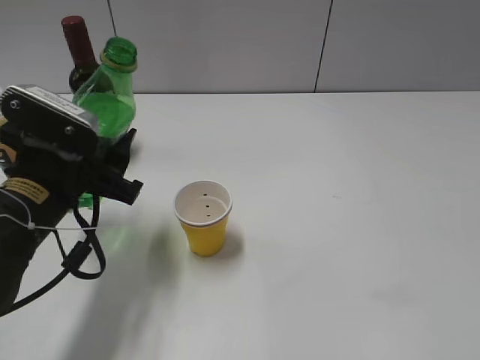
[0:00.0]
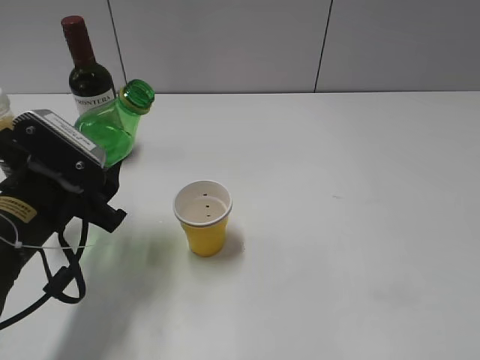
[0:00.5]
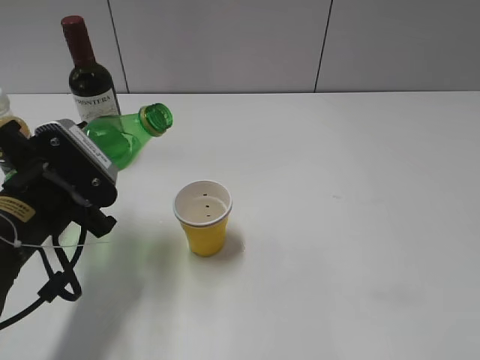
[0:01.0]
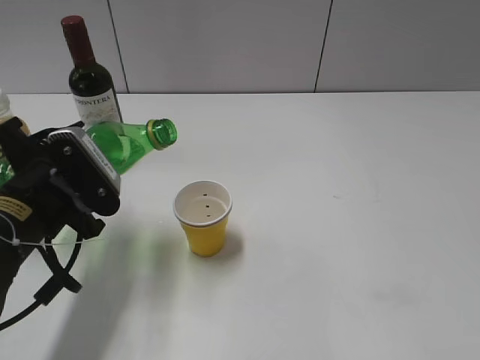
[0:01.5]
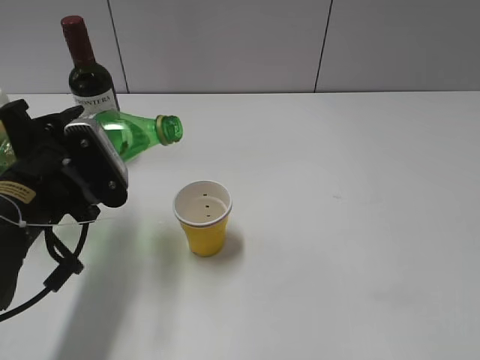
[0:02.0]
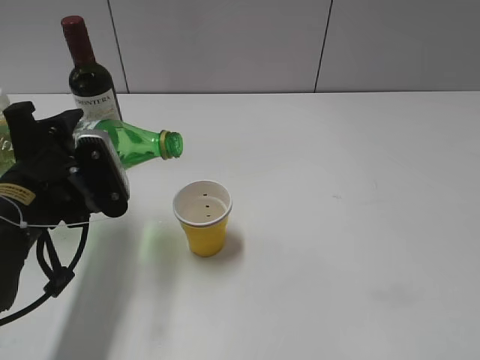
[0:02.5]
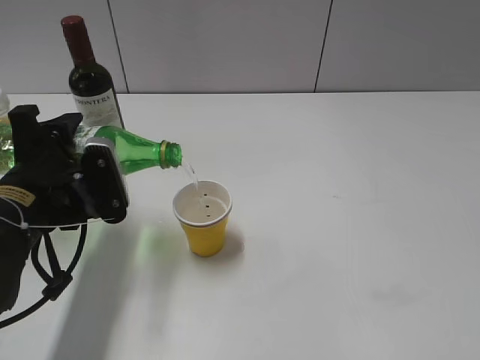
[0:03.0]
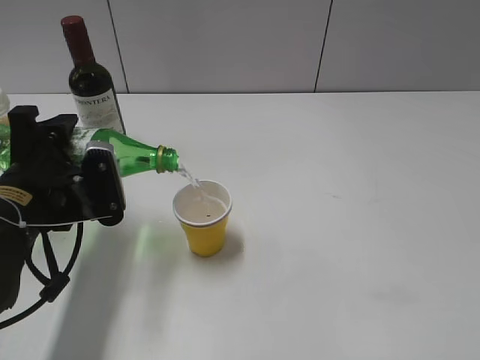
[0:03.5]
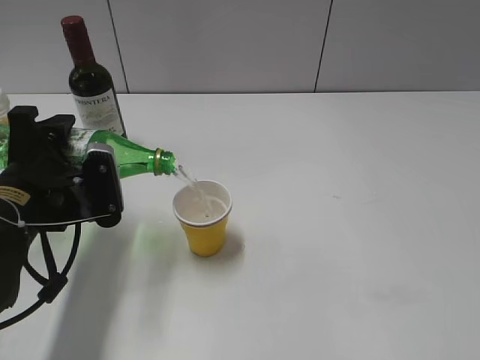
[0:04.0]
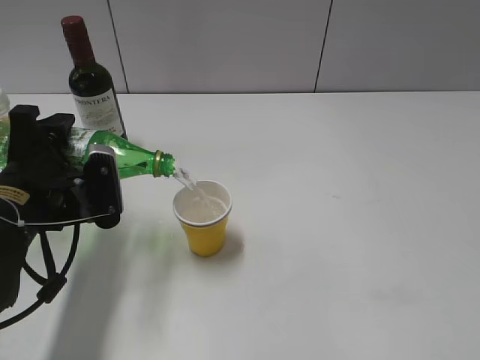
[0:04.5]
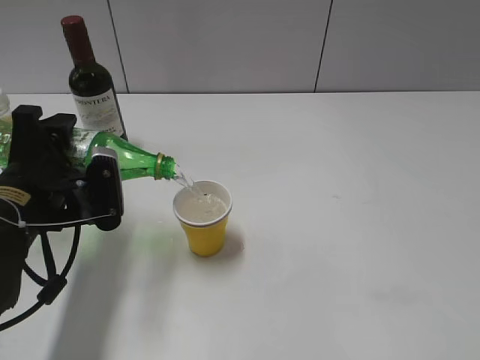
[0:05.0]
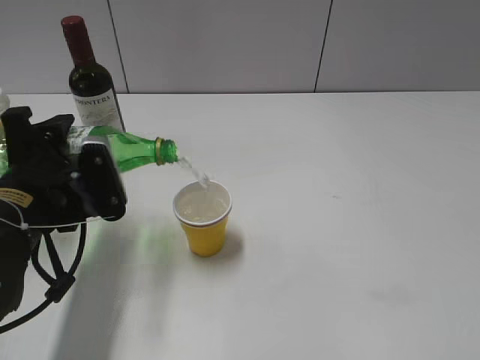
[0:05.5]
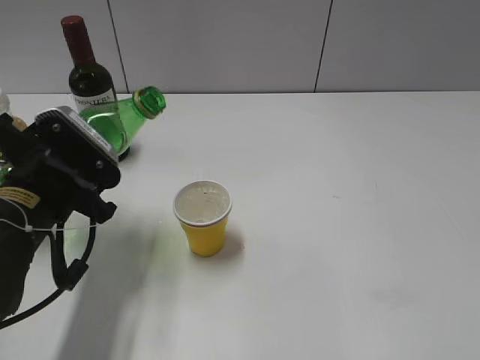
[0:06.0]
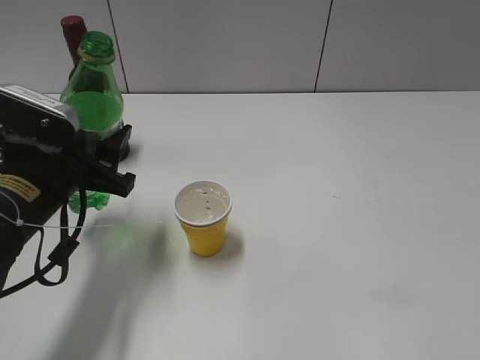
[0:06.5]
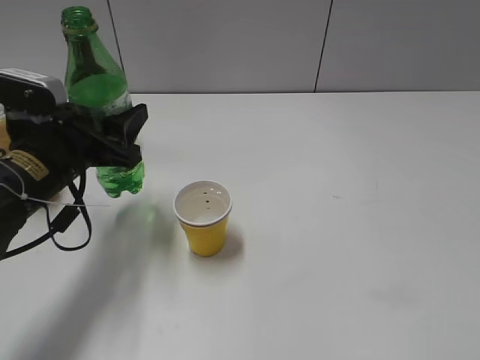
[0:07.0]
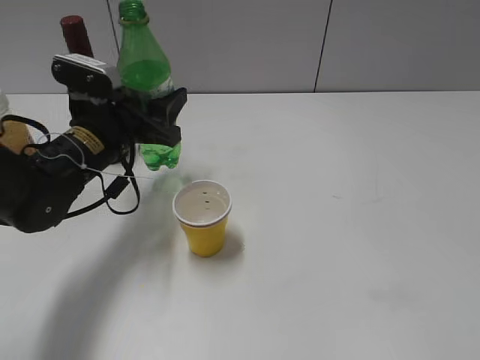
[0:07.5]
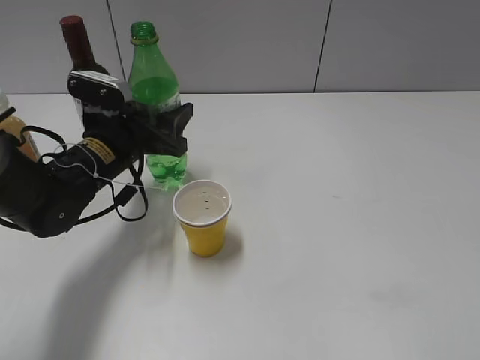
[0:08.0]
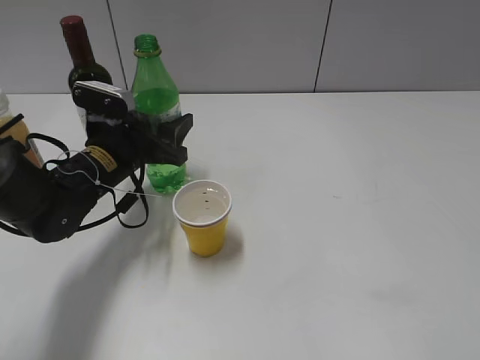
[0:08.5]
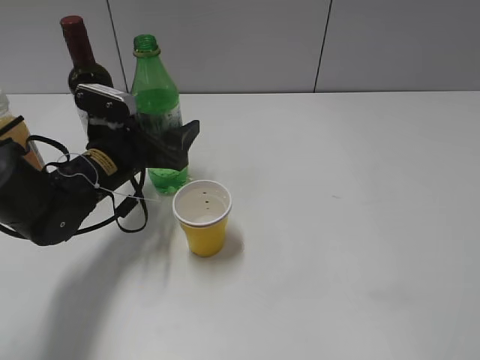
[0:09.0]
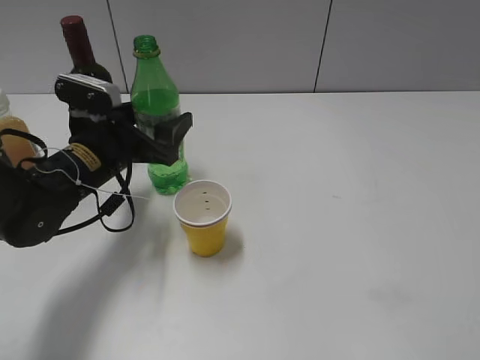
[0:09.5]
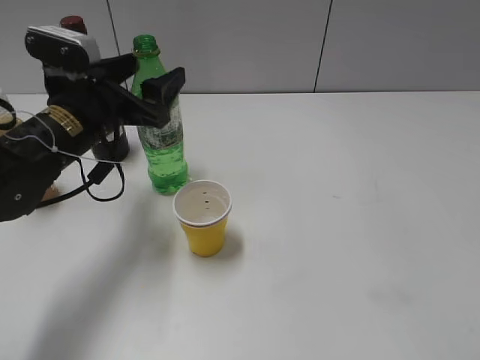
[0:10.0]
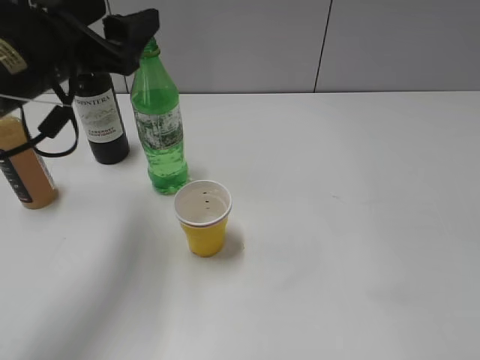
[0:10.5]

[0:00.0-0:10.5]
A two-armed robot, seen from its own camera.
Step, 0:00.0 to 0:05.5: Pour the sprite from bottle to cup with left gripper.
Step, 0:06.0 to 0:09.5: Place the sprite bottle on the table with left gripper.
0:02.0 to 0:04.0: The grippers move only a little.
0:06.5 to 0:08.5: The left gripper travels forward and downward by approximately 10 cm.
0:08.5 to 0:10.5: The left gripper travels upward by roughly 15 cm, and opens.

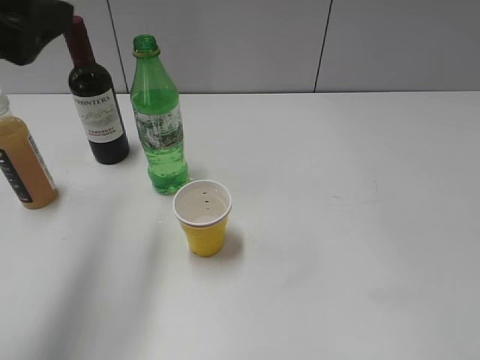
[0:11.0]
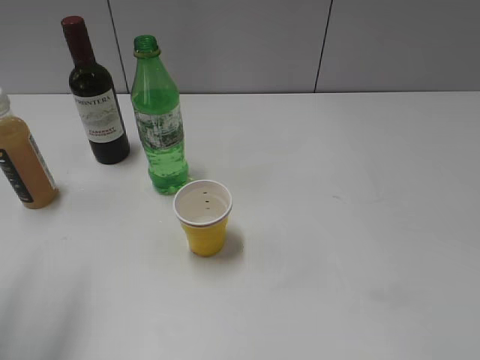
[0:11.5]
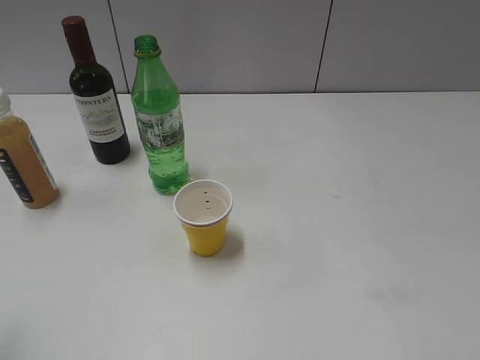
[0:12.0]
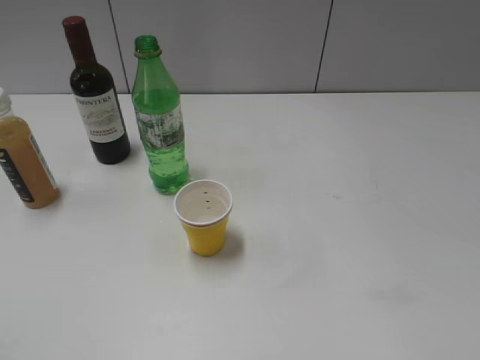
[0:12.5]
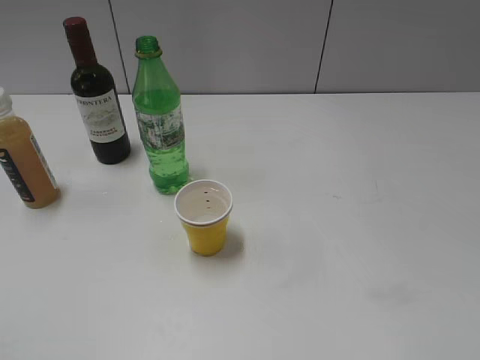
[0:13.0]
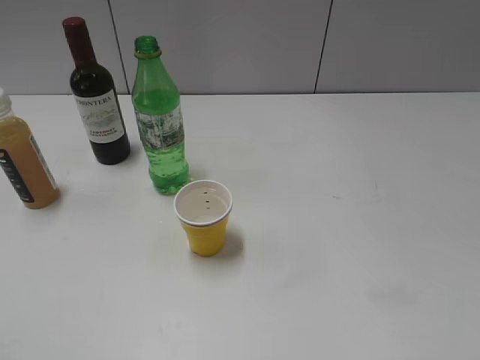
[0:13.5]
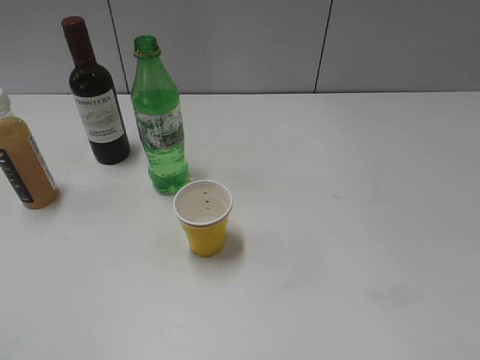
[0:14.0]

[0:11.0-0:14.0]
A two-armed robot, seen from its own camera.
0:11.0 to 0:12.5: The left gripper moves backward and to the left, roughly 20 cm.
